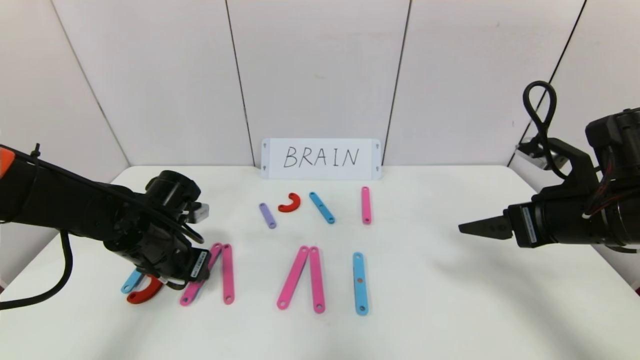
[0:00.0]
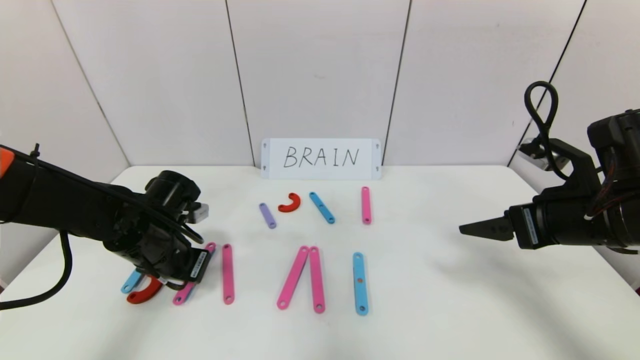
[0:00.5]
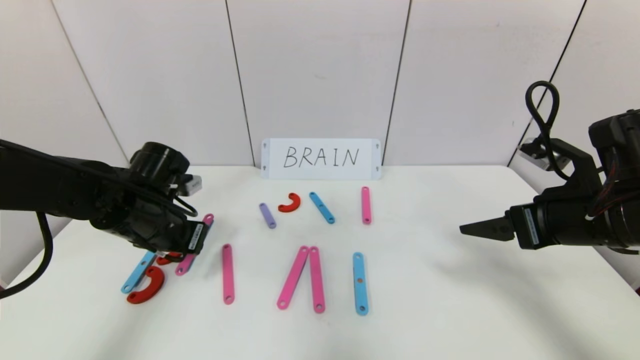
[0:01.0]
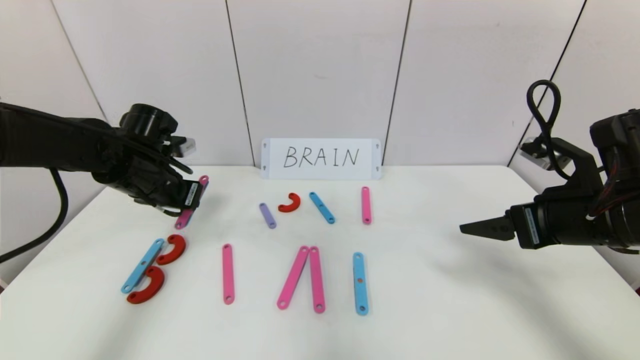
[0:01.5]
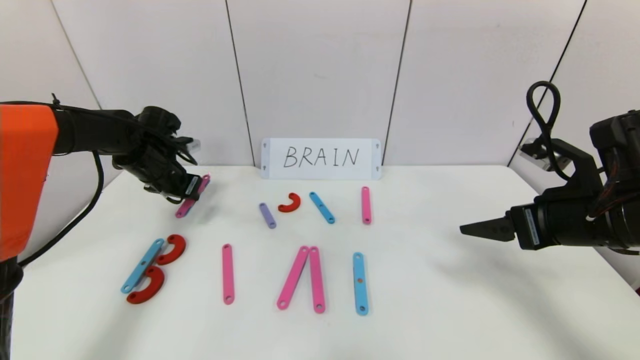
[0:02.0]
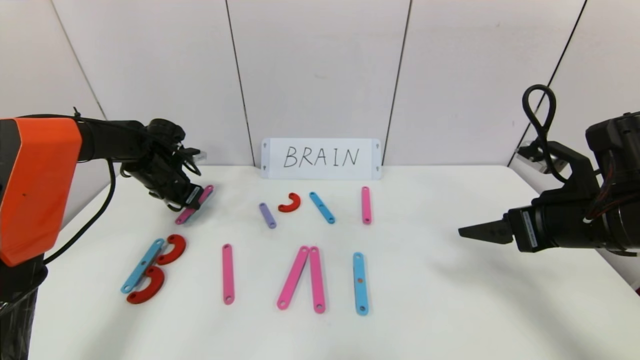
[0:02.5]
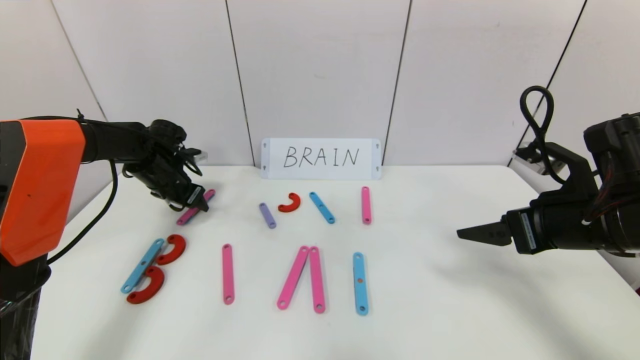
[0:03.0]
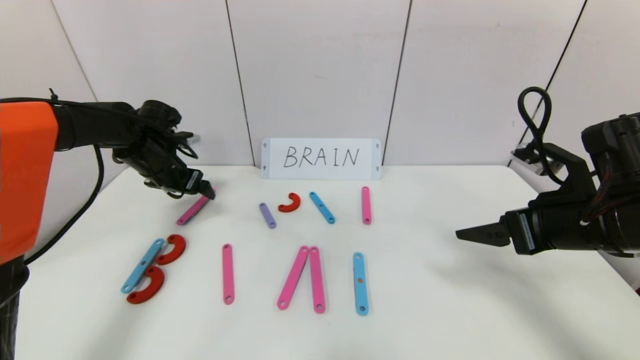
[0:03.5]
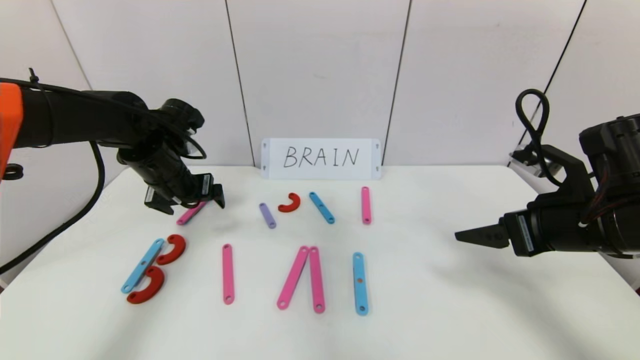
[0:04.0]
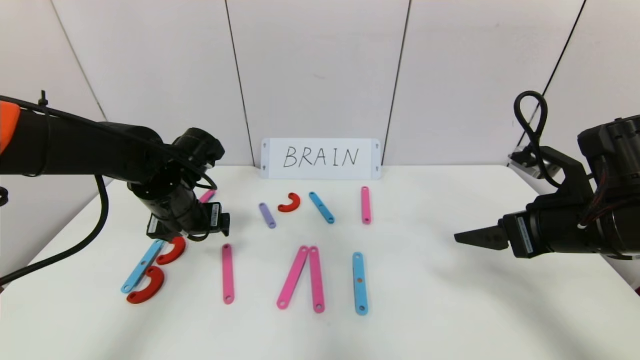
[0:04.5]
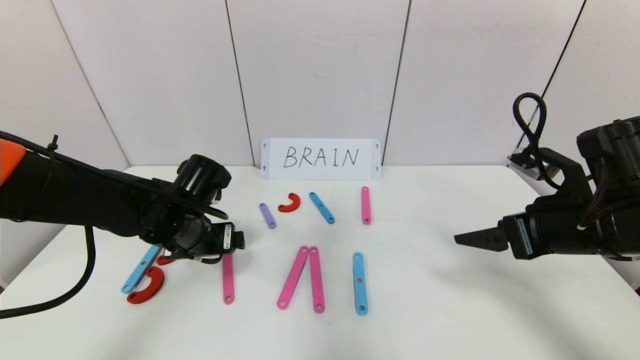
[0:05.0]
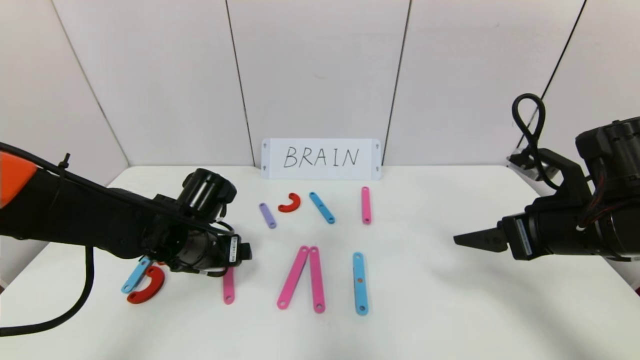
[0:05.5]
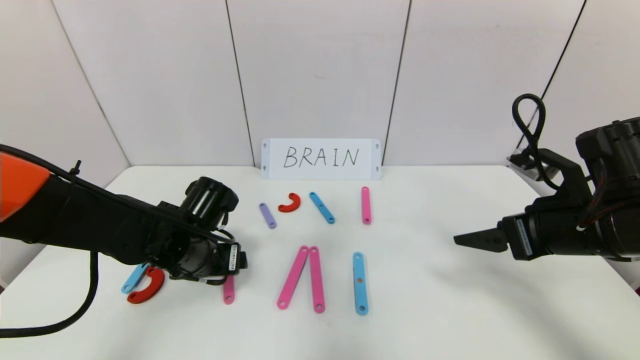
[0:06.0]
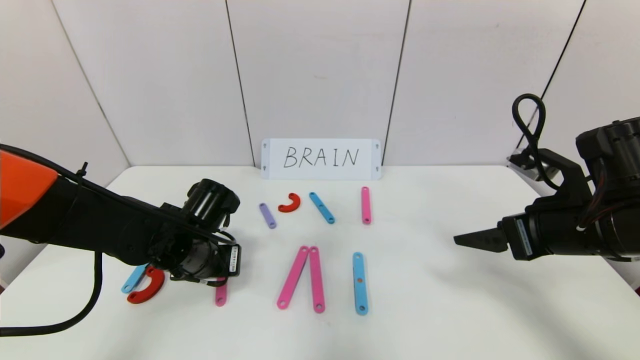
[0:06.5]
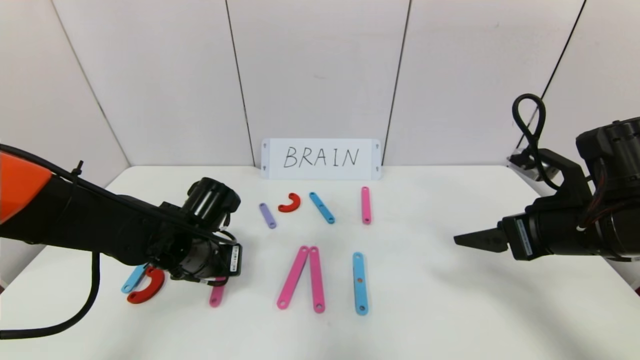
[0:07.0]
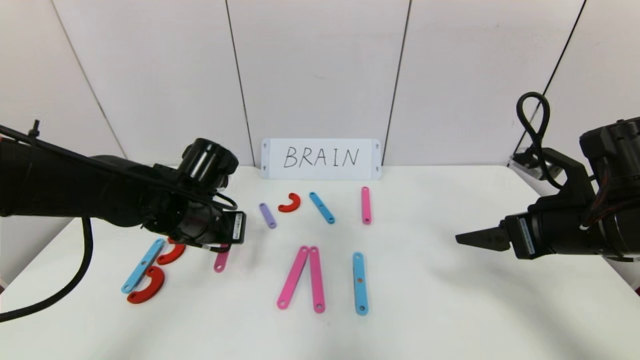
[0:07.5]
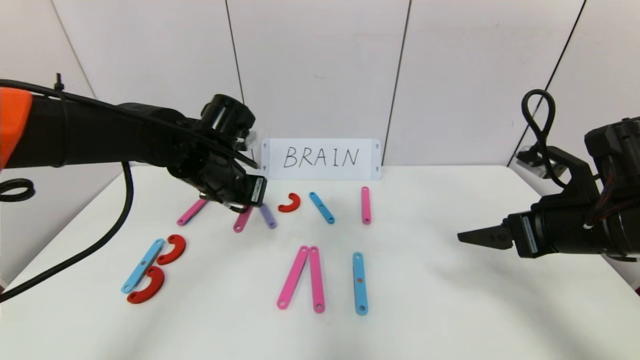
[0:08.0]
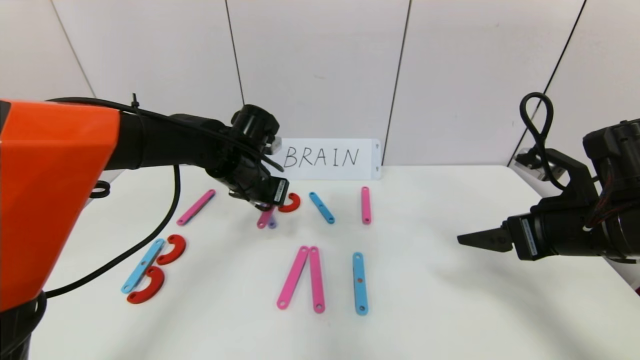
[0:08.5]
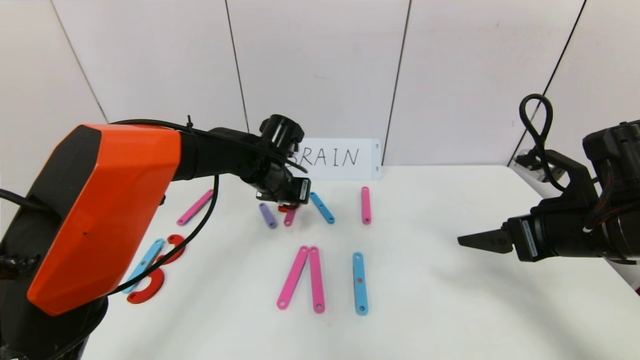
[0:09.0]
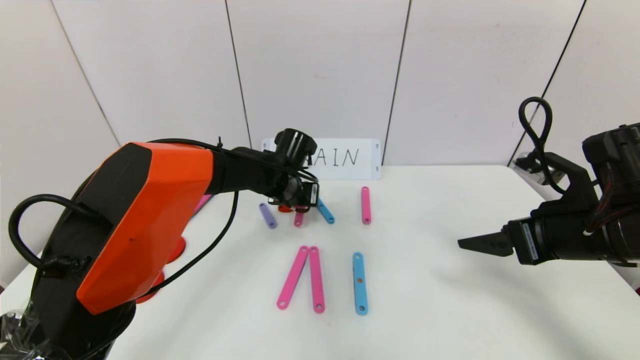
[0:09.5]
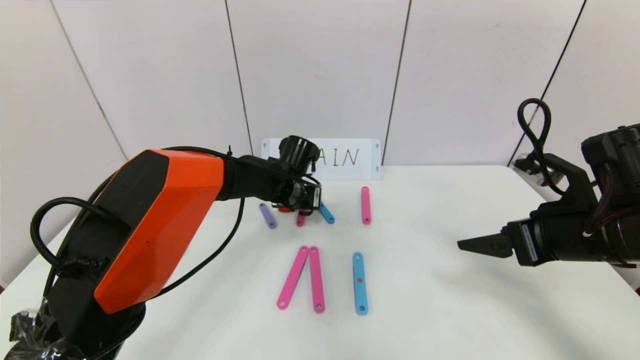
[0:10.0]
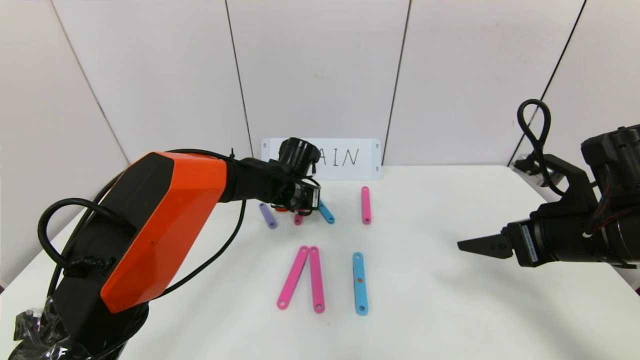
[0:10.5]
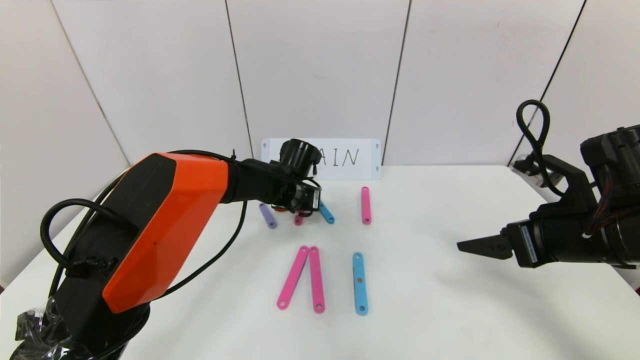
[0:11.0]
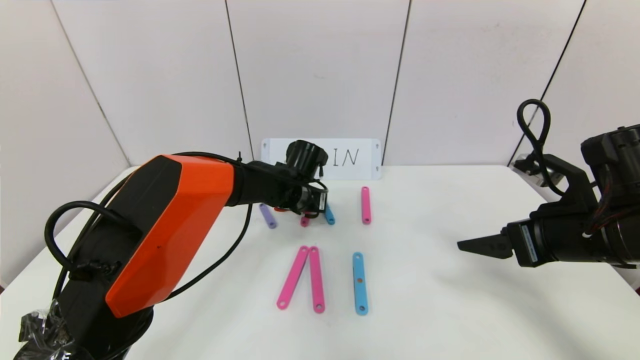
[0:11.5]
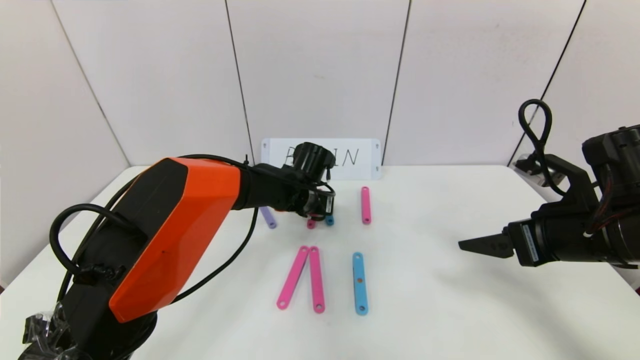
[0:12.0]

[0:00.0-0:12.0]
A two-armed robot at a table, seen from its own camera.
Task of the whole recording: rearrange the word baai as brain.
0:00.0 to 0:02.0: The left gripper moves forward and to the left, roughly 15 cm.
0:02.0 to 0:04.0: The left gripper shifts approximately 10 cm to the right and backward, and opens its fingers.
0:04.0 to 0:06.0: The left gripper is displaced downward, backward and to the right by roughly 15 cm.
0:06.0 to 0:08.0: The left gripper is displaced upward and forward by approximately 10 cm, and closes up.
0:08.0 to 0:10.0: The left gripper moves to the right, downward and forward, about 15 cm.
0:10.0 to 0:12.0: There are only small adjustments of the grippers.

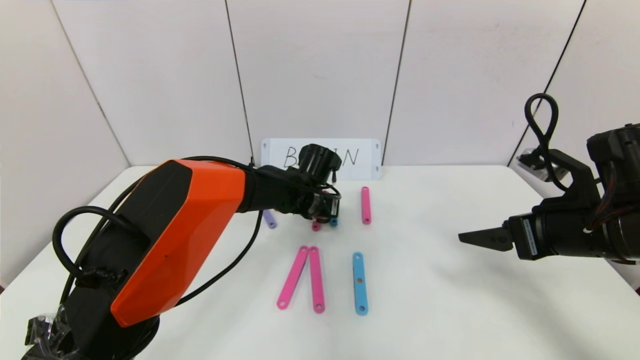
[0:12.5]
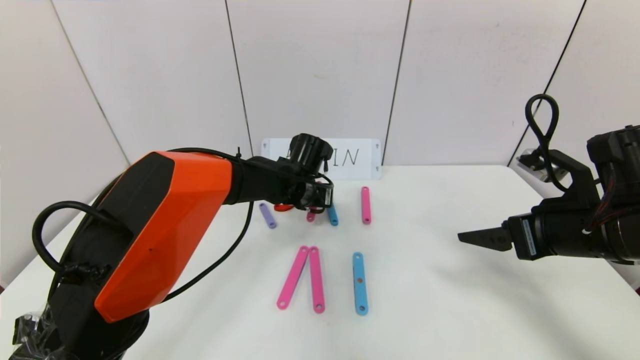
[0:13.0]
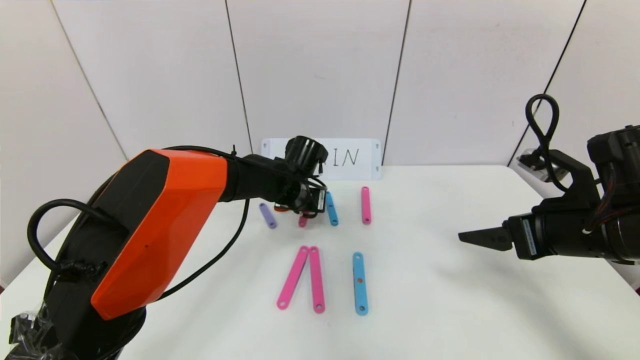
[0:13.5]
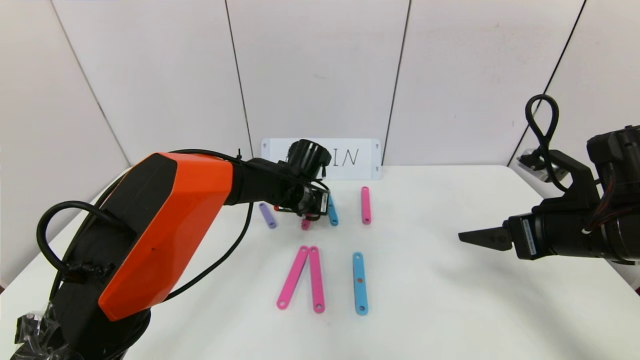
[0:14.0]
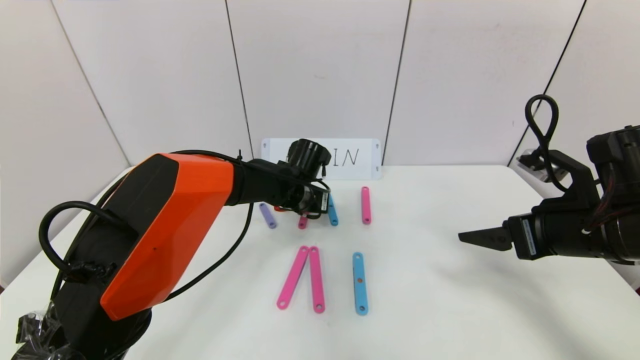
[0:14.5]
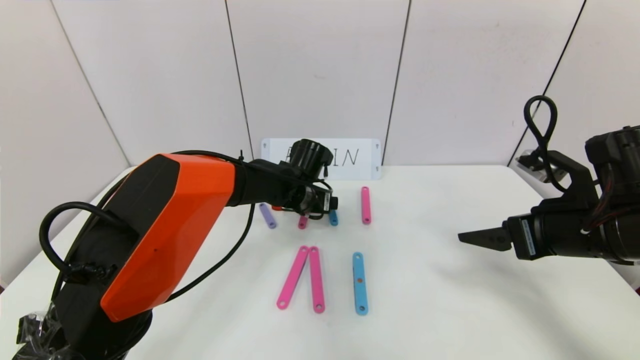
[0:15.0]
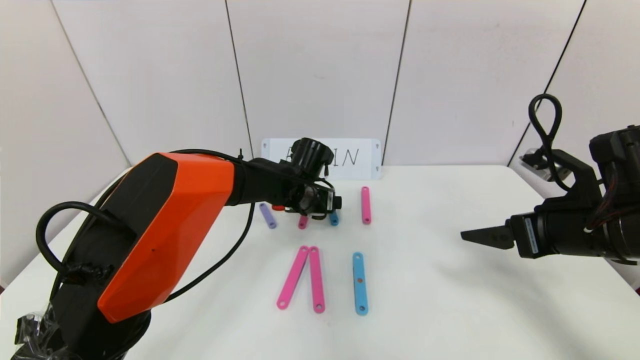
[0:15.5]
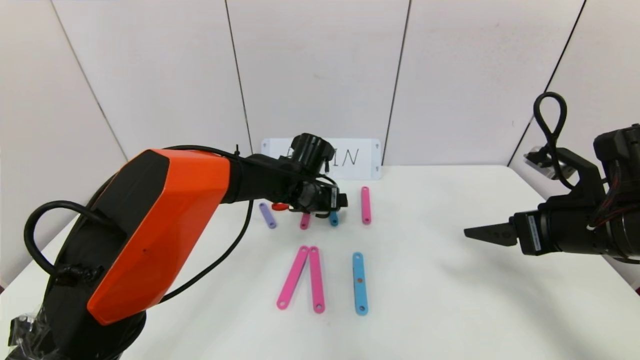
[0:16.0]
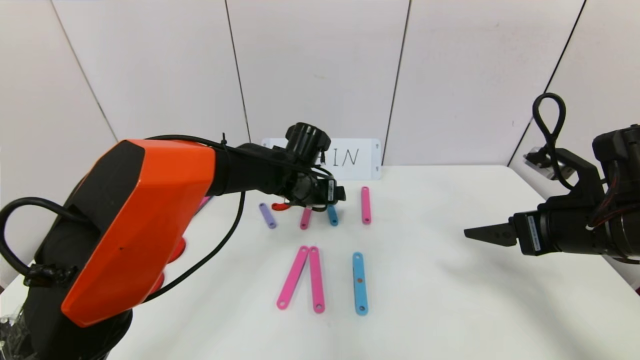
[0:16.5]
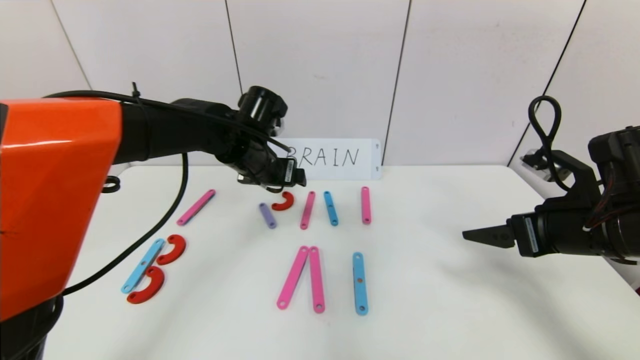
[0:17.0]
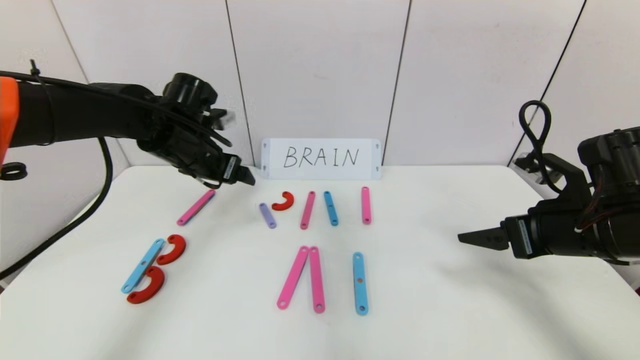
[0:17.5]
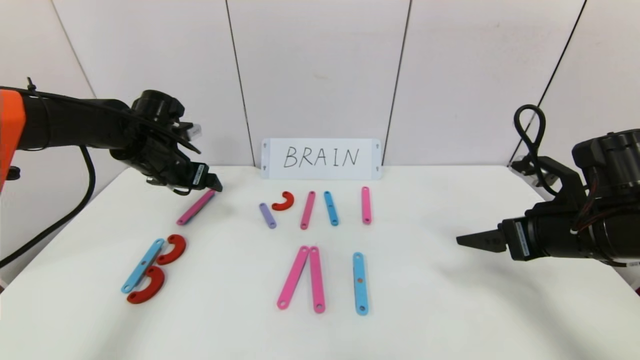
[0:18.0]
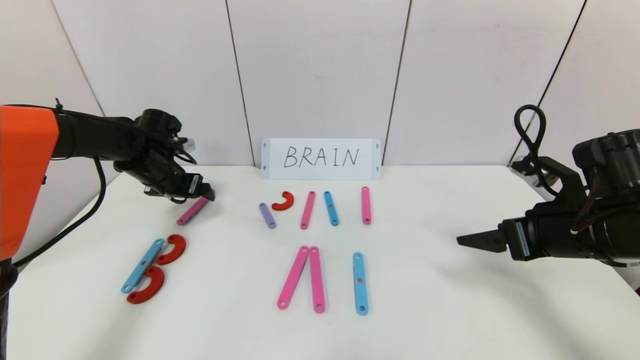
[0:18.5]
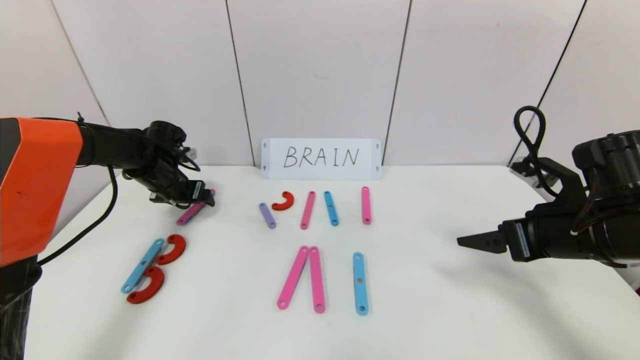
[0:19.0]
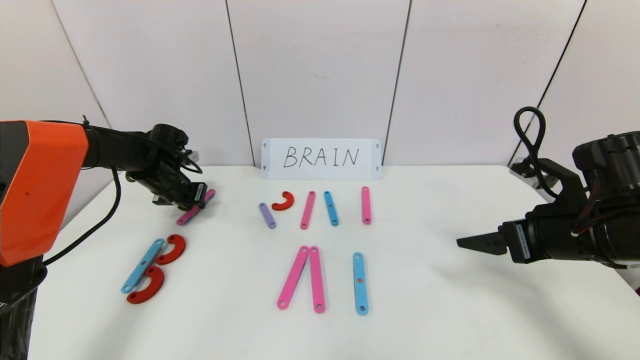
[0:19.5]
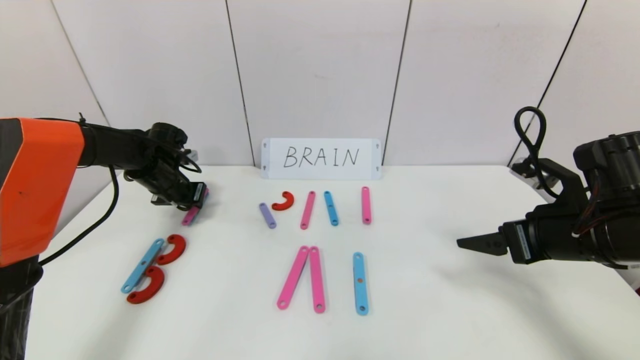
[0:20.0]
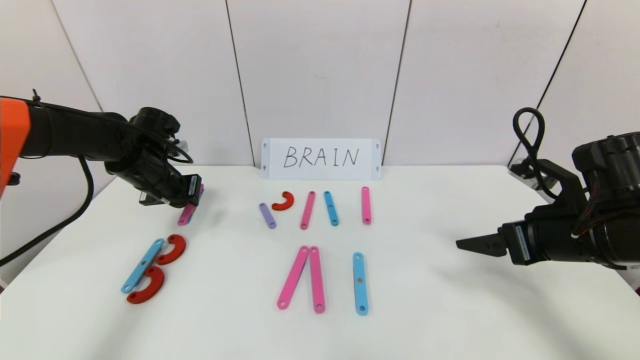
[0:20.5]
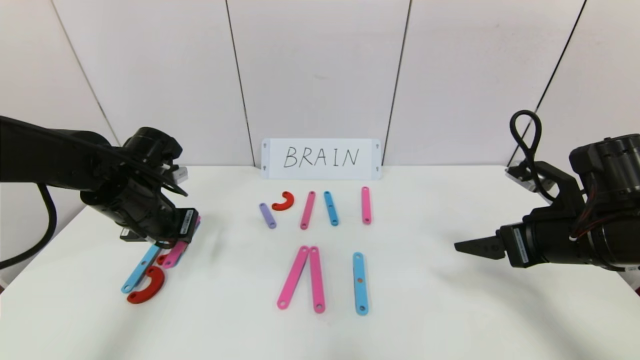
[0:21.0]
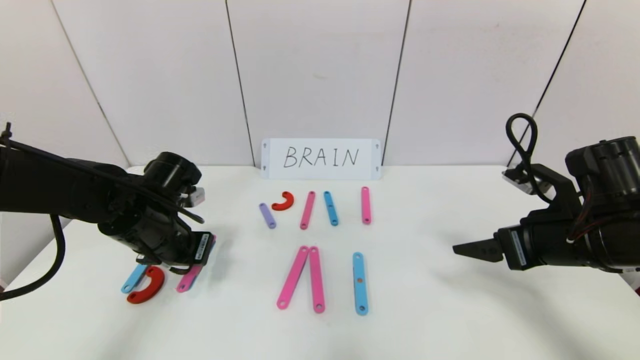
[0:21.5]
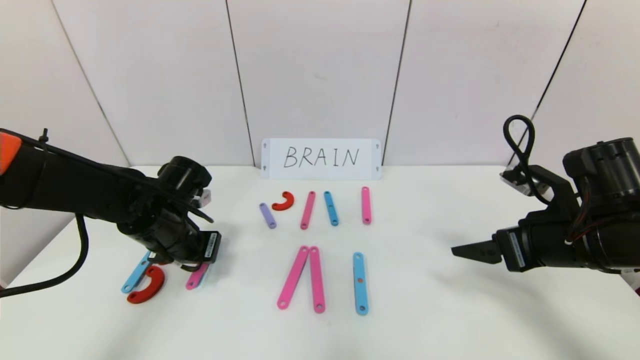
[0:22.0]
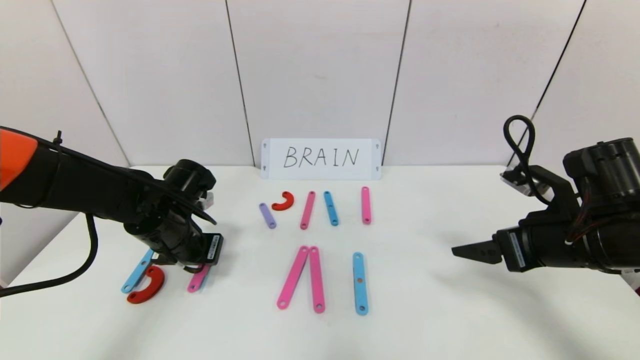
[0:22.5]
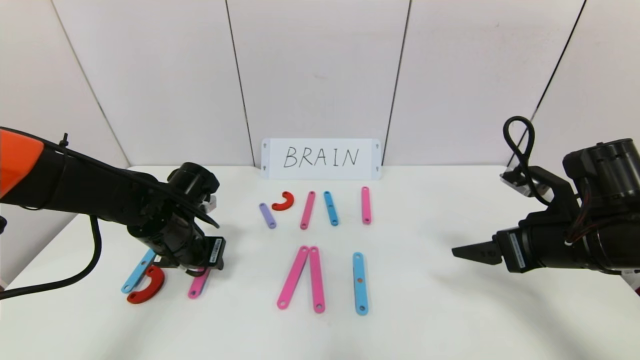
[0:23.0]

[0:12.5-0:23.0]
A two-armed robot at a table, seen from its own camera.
Task of the whole recording: rearrange the word baai as brain.
Step, 0:12.5 to 0:14.5: Disassemble the second character A.
0:12.5 to 0:14.5: The left gripper opens.
0:14.5 to 0:16.5: The left gripper opens.
0:16.5 to 0:19.0: The left gripper travels to the left by roughly 25 cm.
0:19.0 to 0:21.0: The left gripper moves backward, roughly 15 cm, and closes up.
0:21.0 to 0:23.0: The left gripper travels downward by about 5 cm, and opens its fingers.
